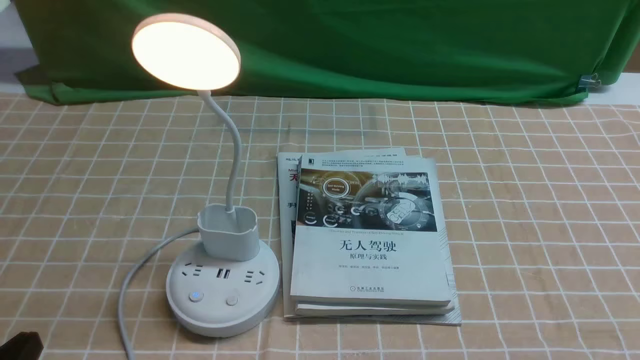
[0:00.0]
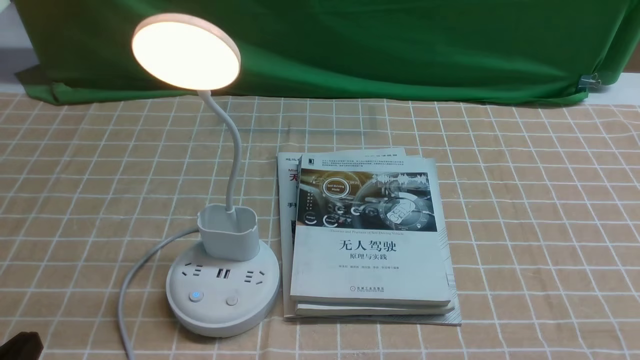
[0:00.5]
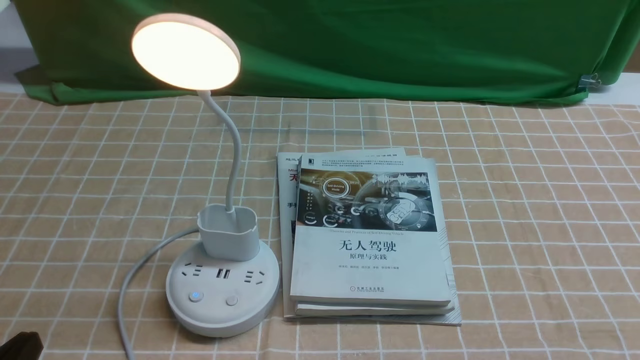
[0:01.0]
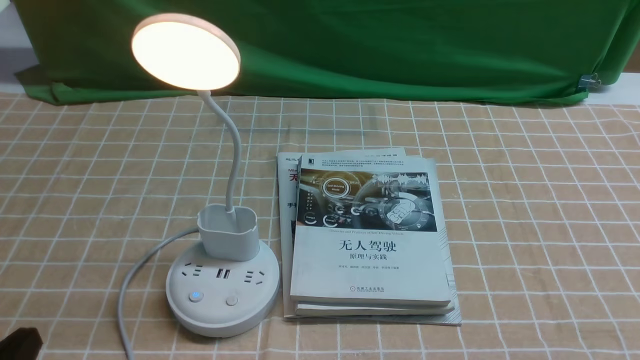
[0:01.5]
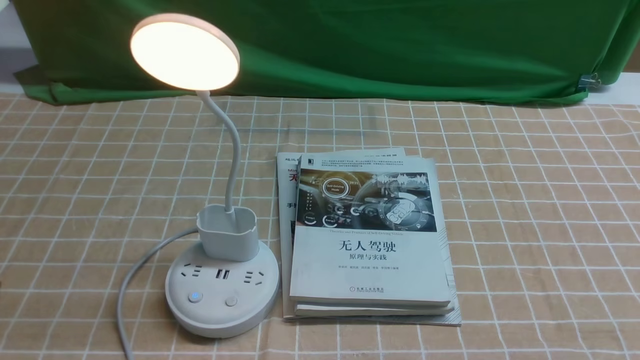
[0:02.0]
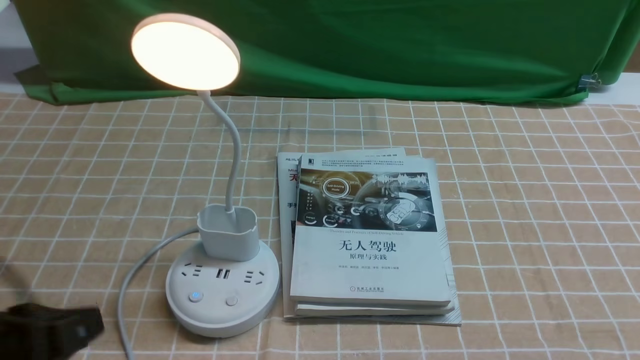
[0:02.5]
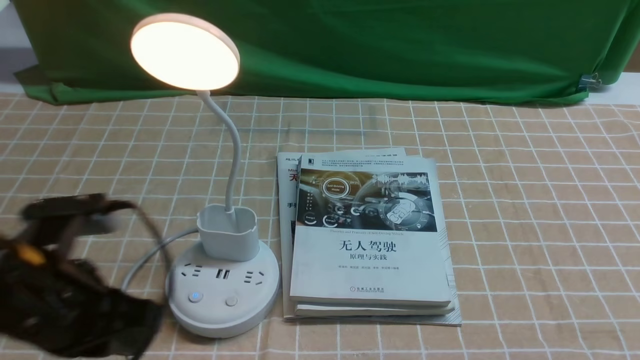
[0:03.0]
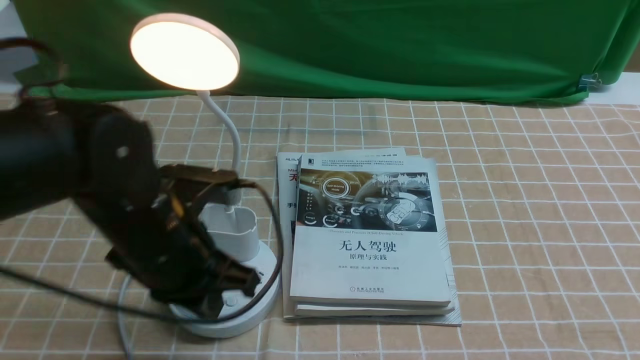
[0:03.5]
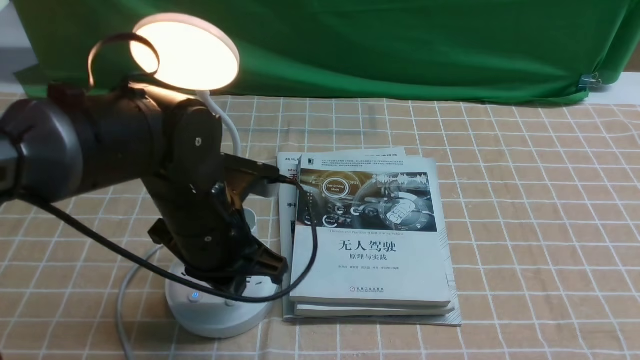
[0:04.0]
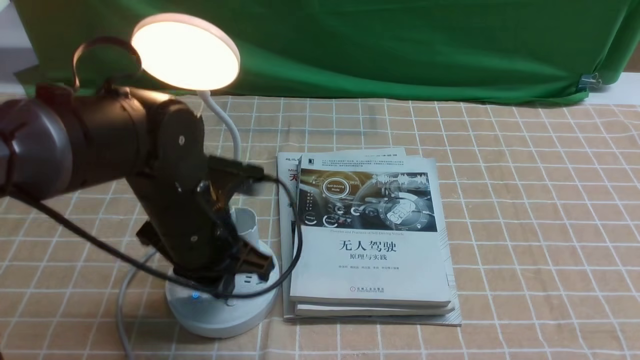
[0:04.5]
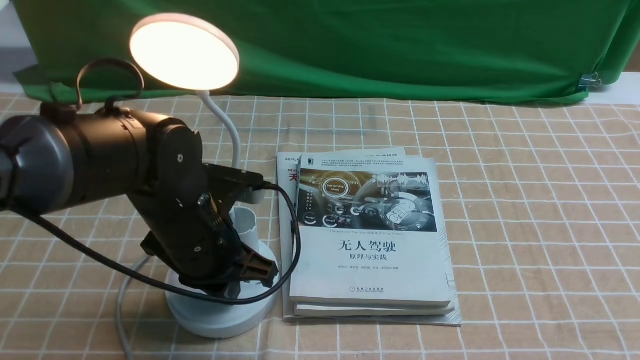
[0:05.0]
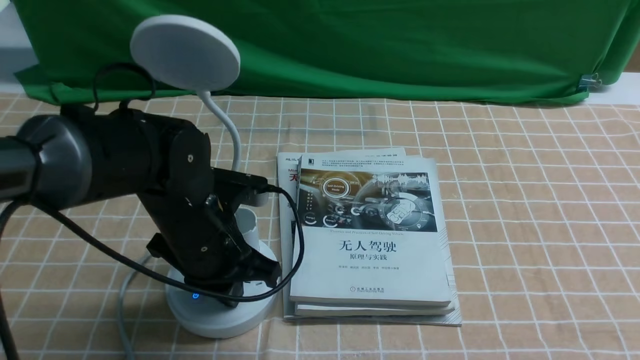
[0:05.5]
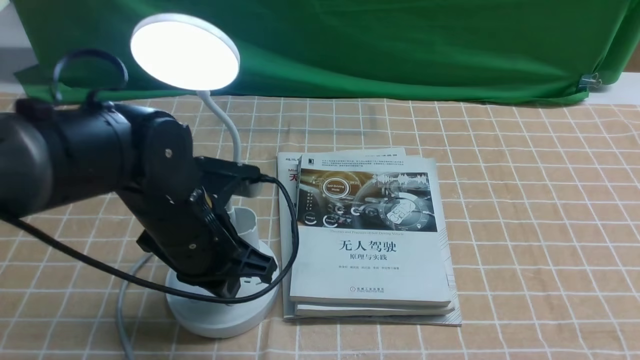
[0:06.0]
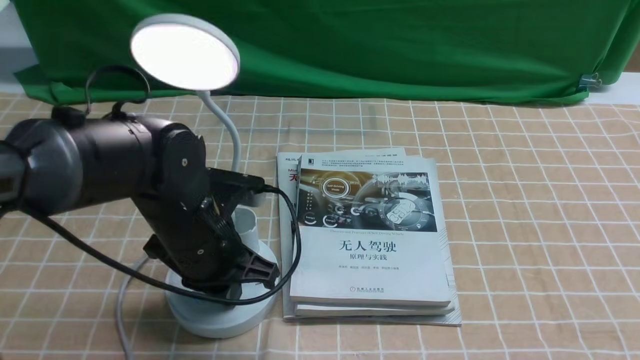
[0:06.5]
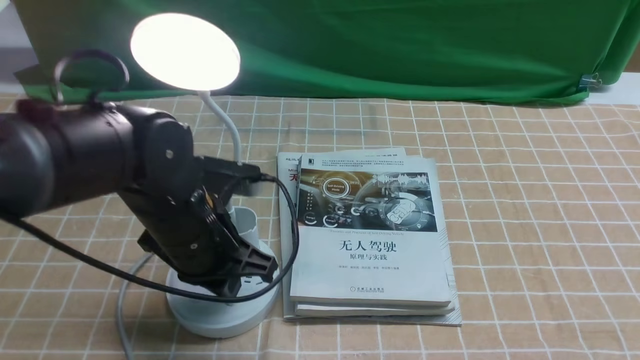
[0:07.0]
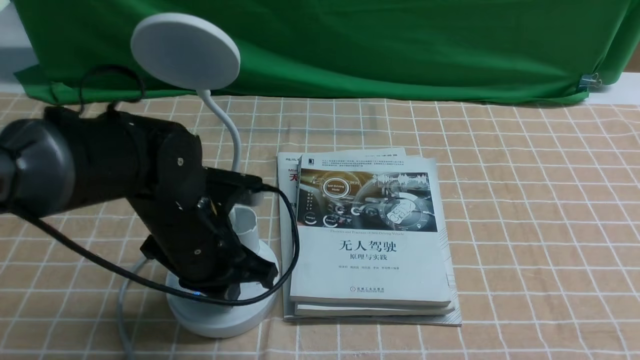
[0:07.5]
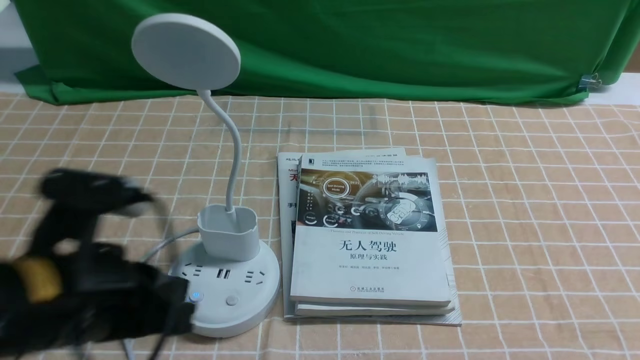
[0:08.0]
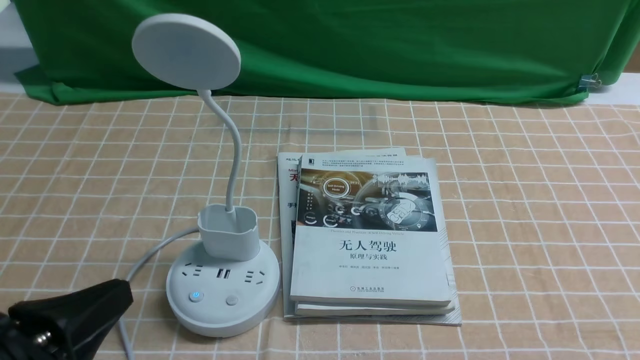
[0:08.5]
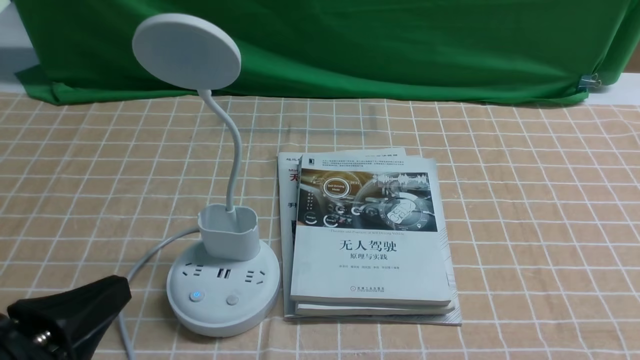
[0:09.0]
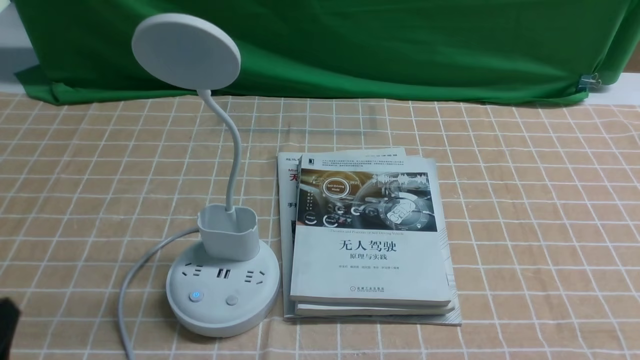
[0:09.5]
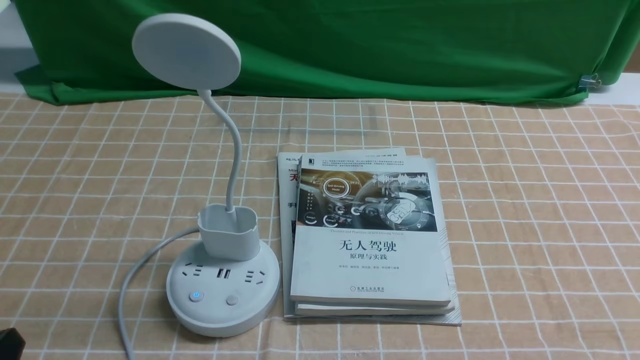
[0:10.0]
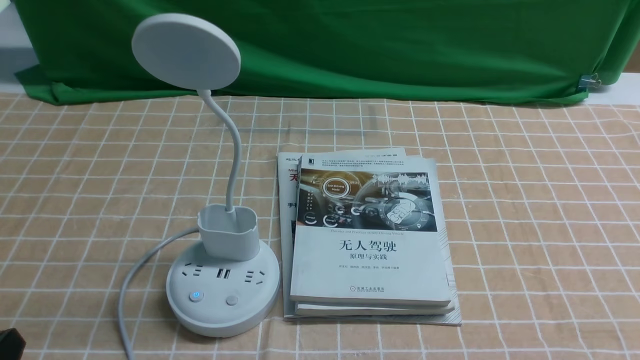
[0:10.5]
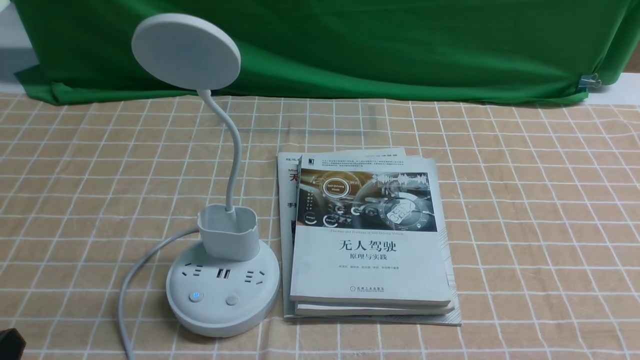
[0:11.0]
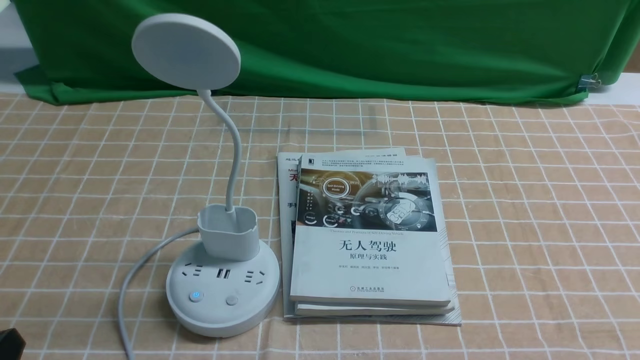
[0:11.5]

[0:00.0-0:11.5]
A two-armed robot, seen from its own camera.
Task of the whole recording: turn off the desk lamp on the light coffee tablecloth by hand.
Step, 0:00.0 to 0:07.5: use the left arm to press the button switch on the lamp holder.
0:02.0 to 0:04.0: The left gripper goes some 25 cm forward and to the right, and closes up.
0:04.0 to 0:06.0: The grippers stay close to where they were, moving slightly.
0:06.0 to 0:07.5: The two grippers keep their place.
0:07.5 to 0:09.5: The left gripper moves backward and to the left, approximately 25 cm.
